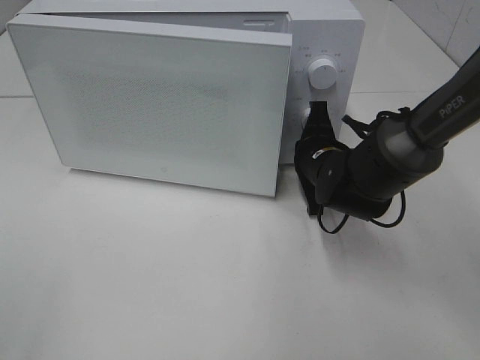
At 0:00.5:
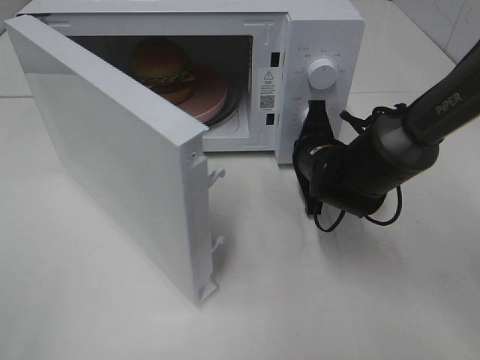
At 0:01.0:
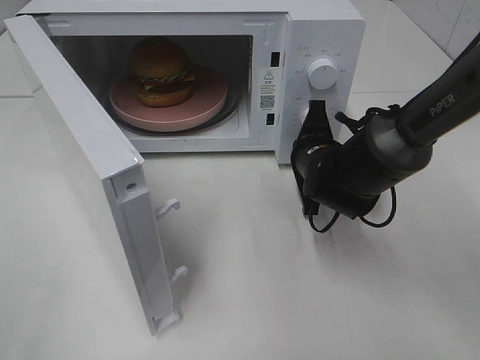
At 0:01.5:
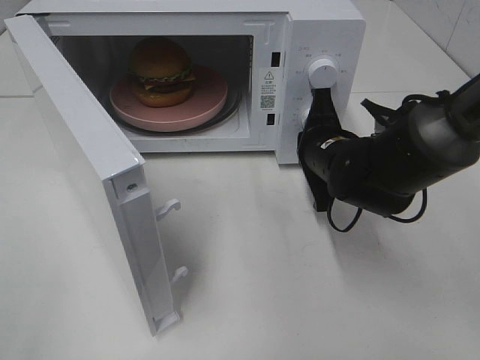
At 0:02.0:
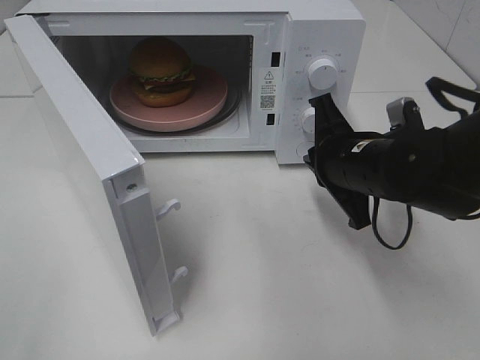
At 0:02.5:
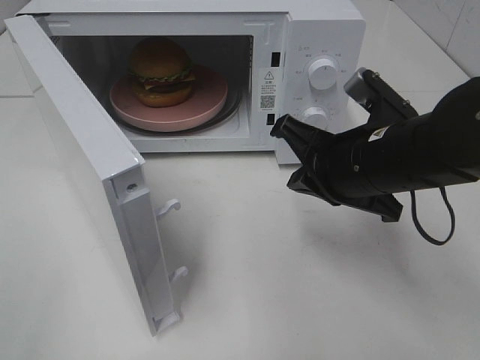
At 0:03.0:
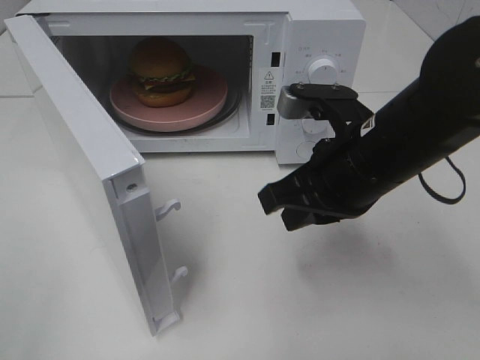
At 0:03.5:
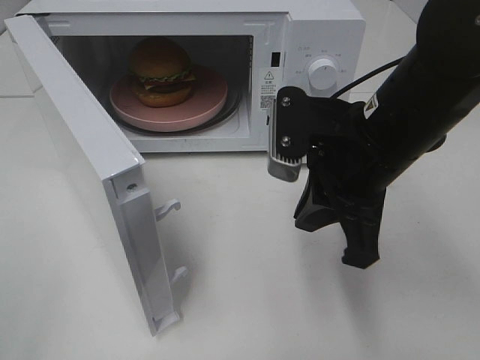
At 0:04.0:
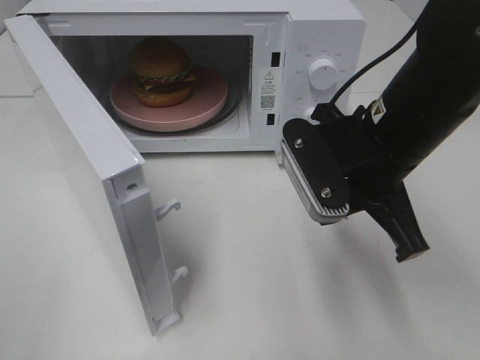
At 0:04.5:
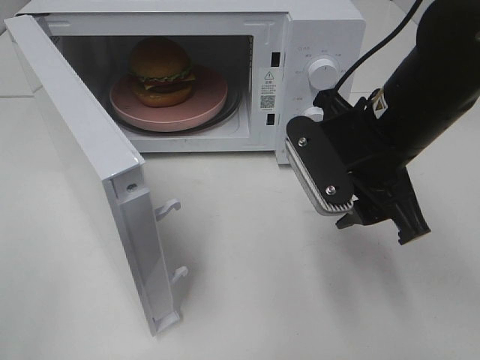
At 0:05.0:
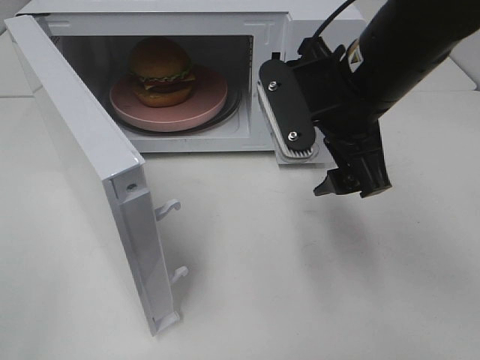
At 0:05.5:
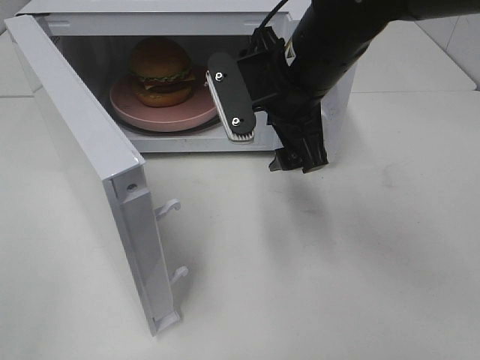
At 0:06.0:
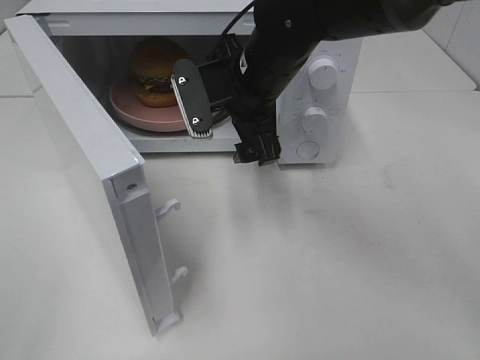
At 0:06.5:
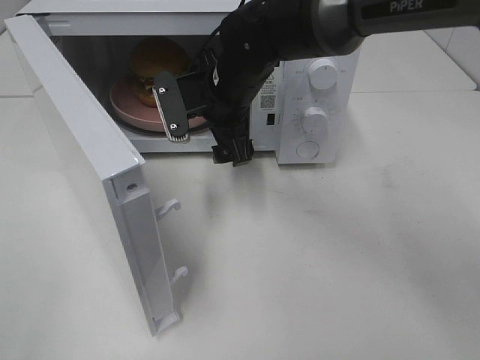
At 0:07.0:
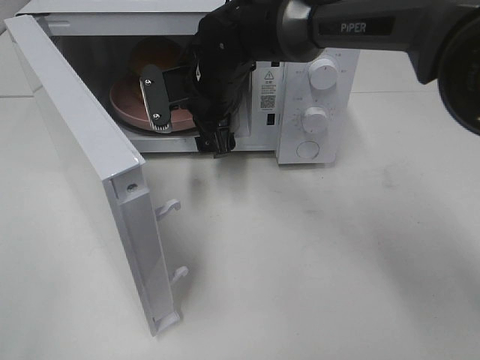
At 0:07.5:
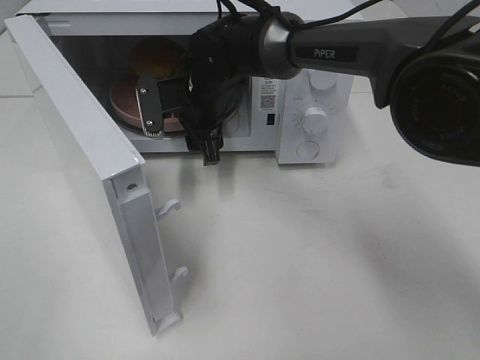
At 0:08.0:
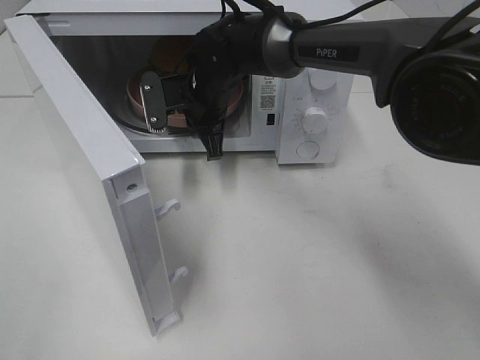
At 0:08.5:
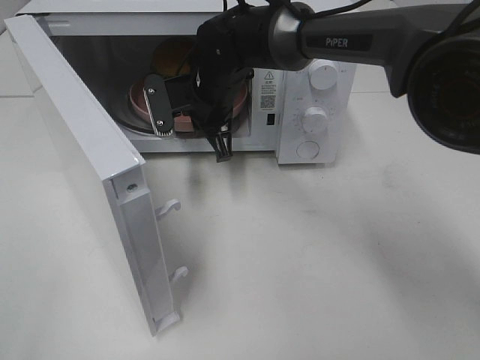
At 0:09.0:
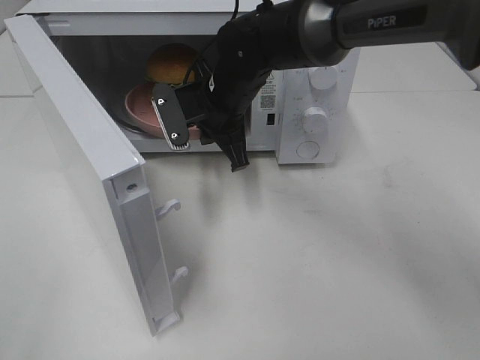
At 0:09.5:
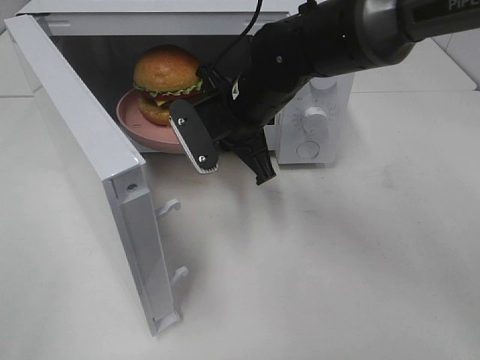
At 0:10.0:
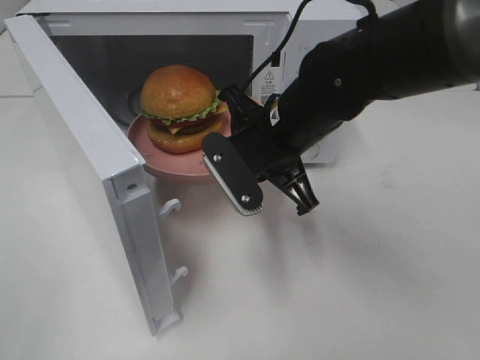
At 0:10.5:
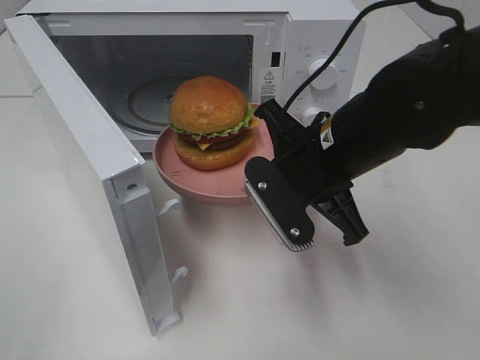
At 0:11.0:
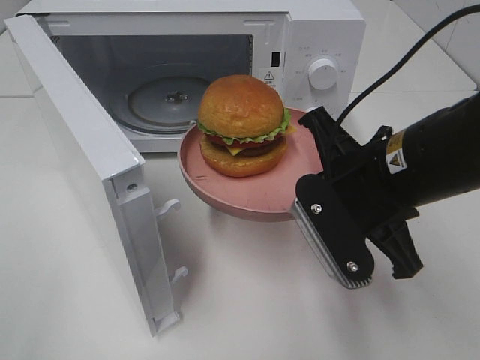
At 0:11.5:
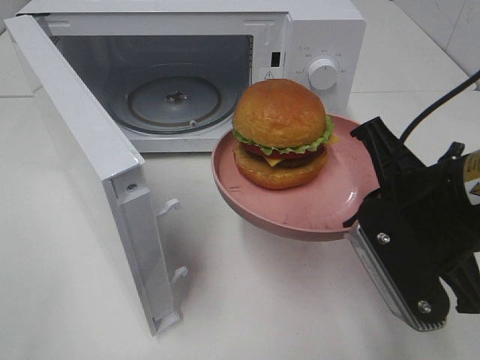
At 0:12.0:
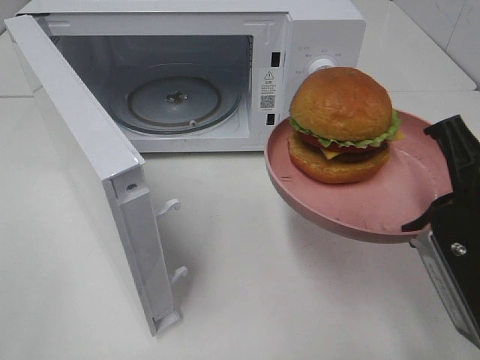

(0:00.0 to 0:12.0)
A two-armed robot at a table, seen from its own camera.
Task of the whole recording: Heat the burger.
Step, 0:02.0 - 0:07.5: Right hand: grab the plate with the hamburger.
0:00.0 - 0:02.0: The right gripper shifts some 10 cm backward and upward.
0:02.0 - 0:04.0: The right gripper is displaced upward by about 5 cm.
0:04.0 - 0:06.0: The right gripper heads forward and to the left, covering about 15 cm, and opens up.
0:06.0 - 0:08.0: The right gripper shifts about 10 cm forward, downward and to the left, and closes up.
0:08.0 - 0:10.0: The right gripper moves backward and to the right, some 15 cm.
0:10.0 - 0:12.0: The right gripper heads backward and to the right, covering about 20 cm.

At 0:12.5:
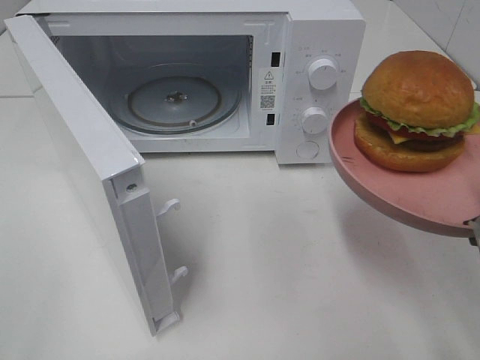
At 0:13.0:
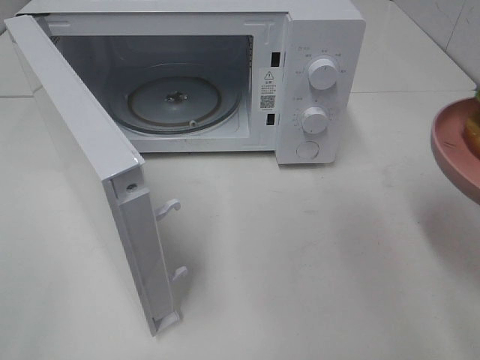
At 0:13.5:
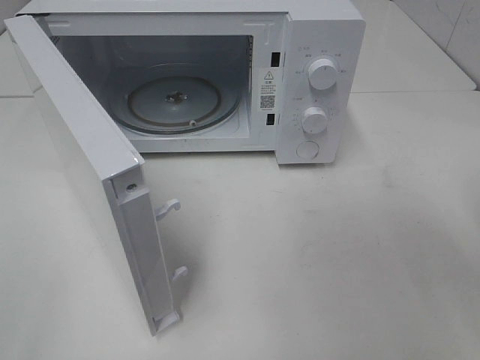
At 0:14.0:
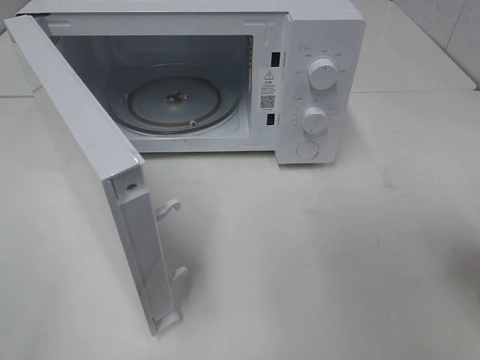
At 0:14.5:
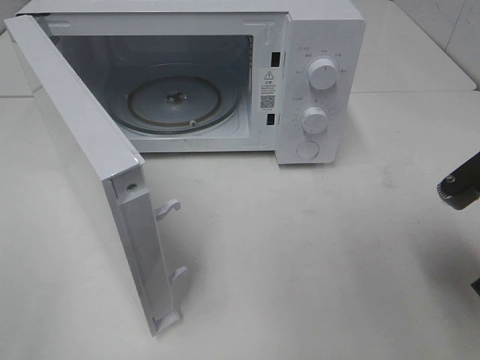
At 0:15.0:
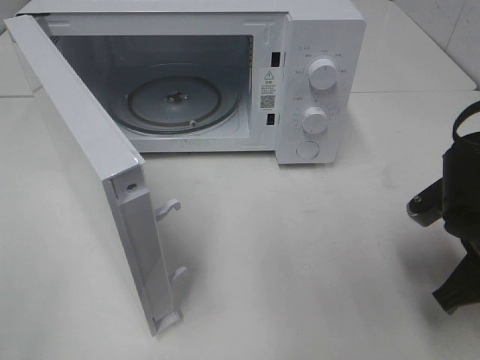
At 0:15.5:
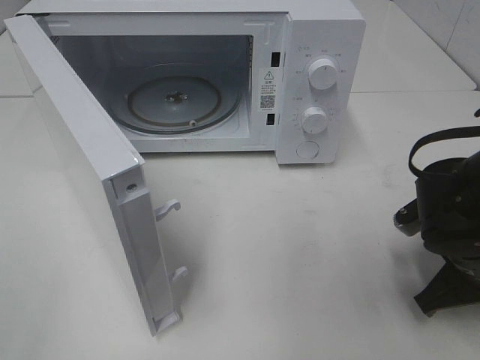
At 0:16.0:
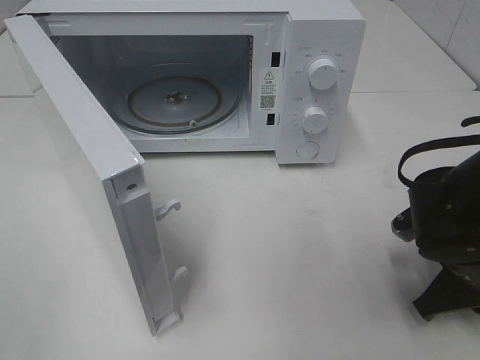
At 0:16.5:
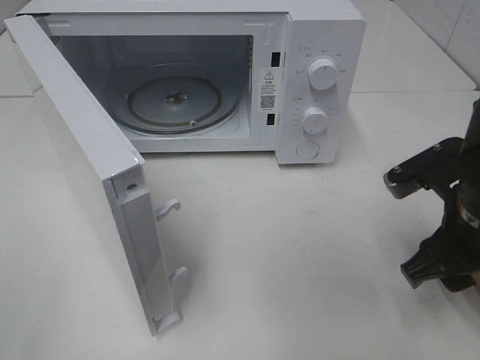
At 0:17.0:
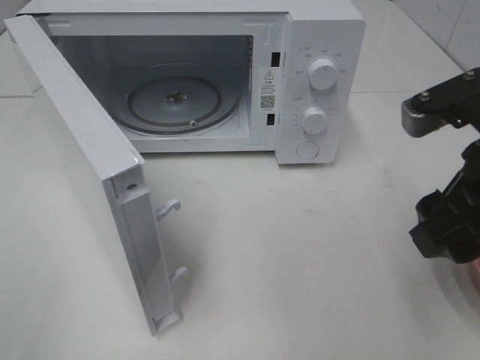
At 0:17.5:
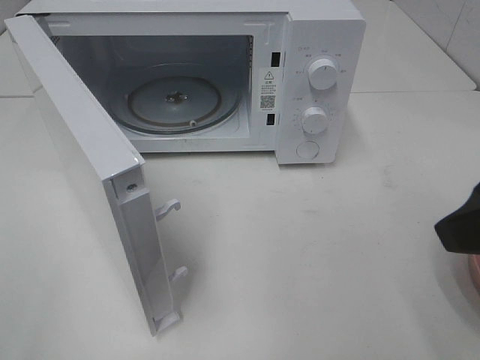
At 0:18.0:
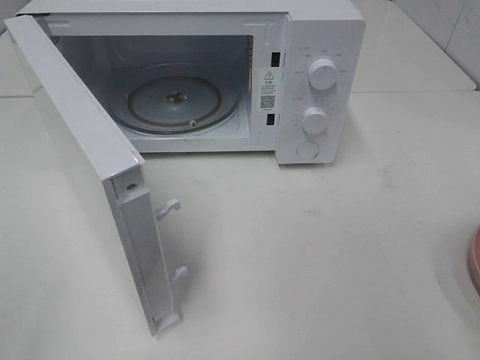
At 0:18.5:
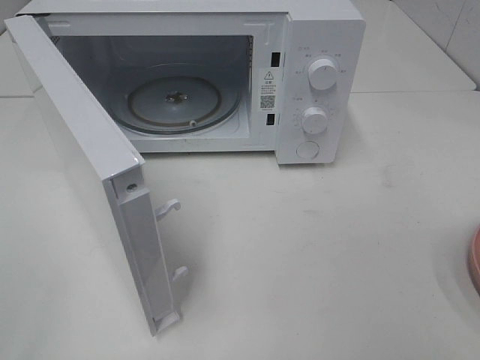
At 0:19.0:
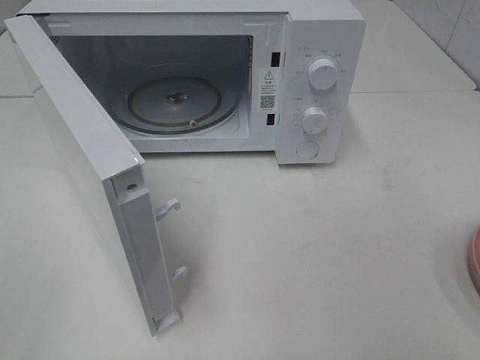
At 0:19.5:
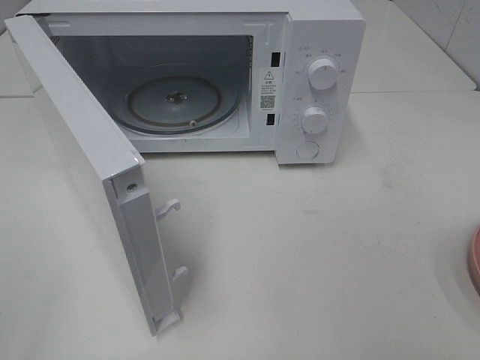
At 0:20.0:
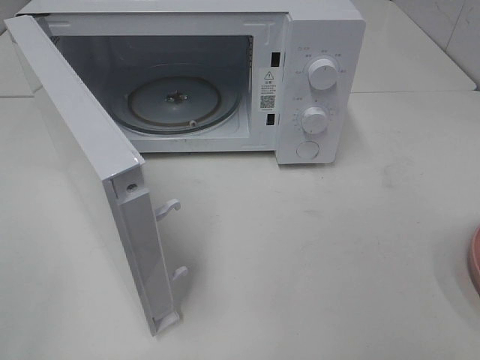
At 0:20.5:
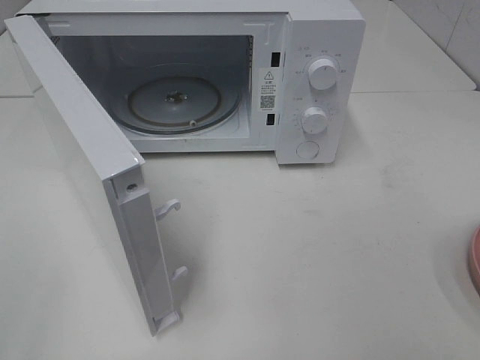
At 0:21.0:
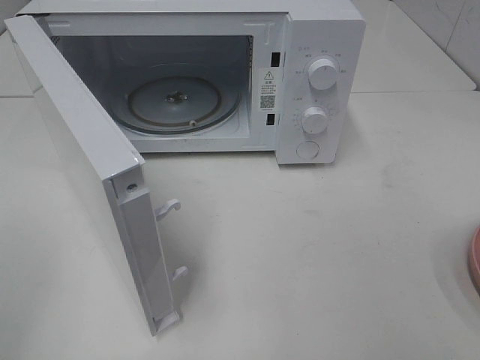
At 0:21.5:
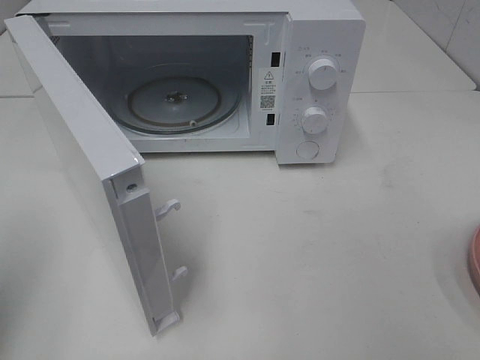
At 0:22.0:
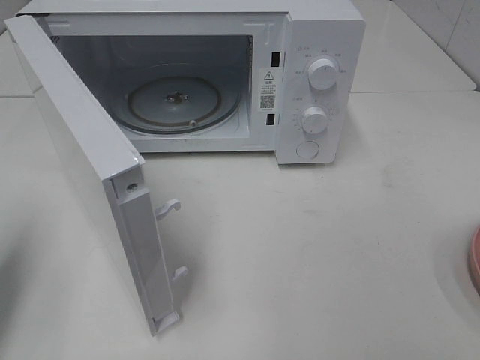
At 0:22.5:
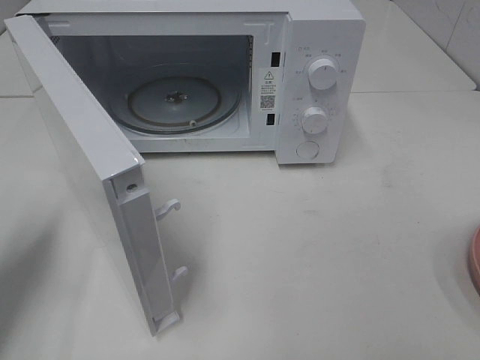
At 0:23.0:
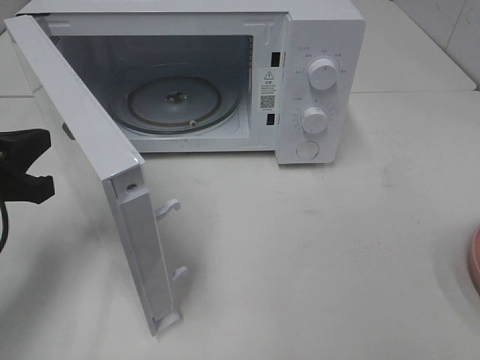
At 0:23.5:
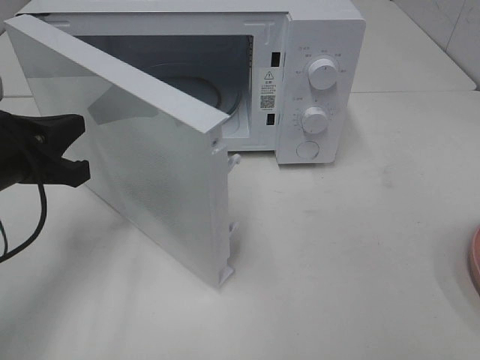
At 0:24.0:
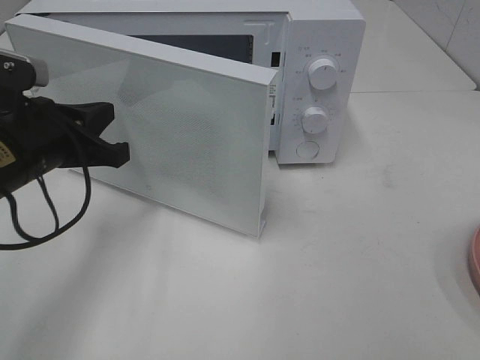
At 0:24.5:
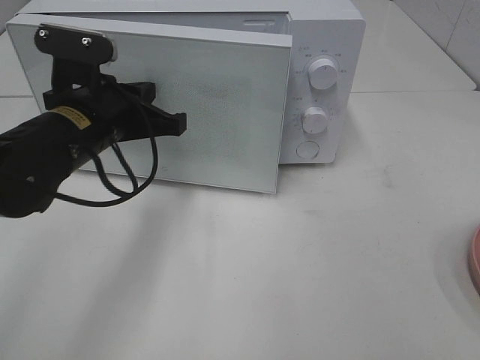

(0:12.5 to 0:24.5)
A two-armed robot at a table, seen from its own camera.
Task of the whole recording: Heat the burger.
Step, 0:12.5 - 0:16.0: Right hand: place the plate on the table.
0:12.5 - 0:14.5: The right gripper heads downward, covering about 5 cm.
0:14.5 - 0:16.5: The right gripper travels downward and back again, roughly 10 cm each way, and opens.
0:16.5 - 0:18.5: The right gripper heads backward, upward and to the right, covering roughly 25 cm.
0:20.5 - 0:22.5: The left gripper heads forward and downward, covering approximately 20 cm, and closes up.
0:22.5 - 0:24.5: The left gripper goes roughly 20 cm to the right and forward.

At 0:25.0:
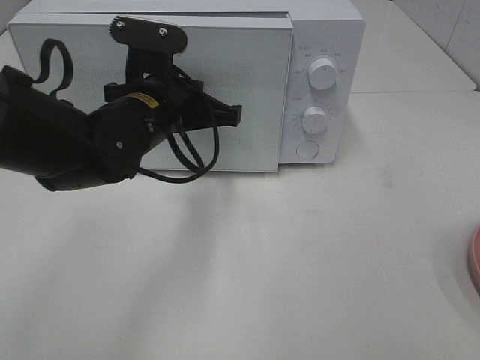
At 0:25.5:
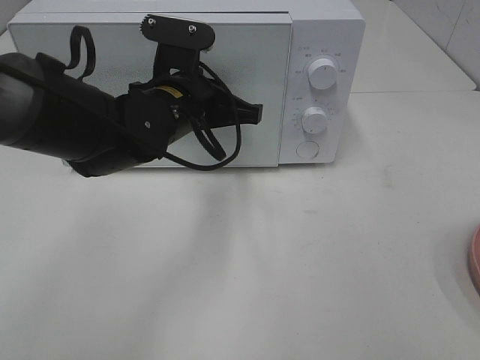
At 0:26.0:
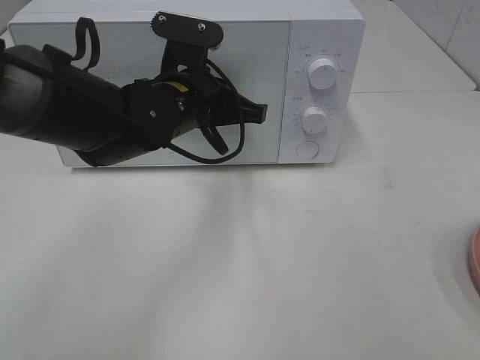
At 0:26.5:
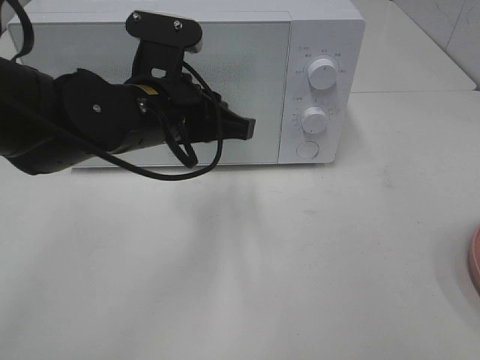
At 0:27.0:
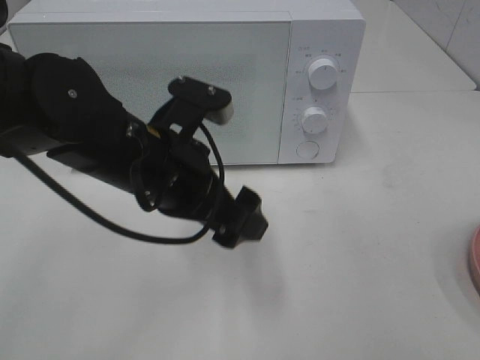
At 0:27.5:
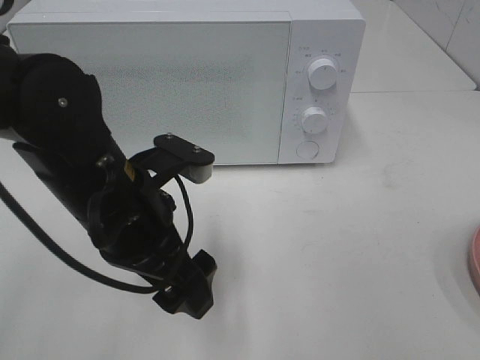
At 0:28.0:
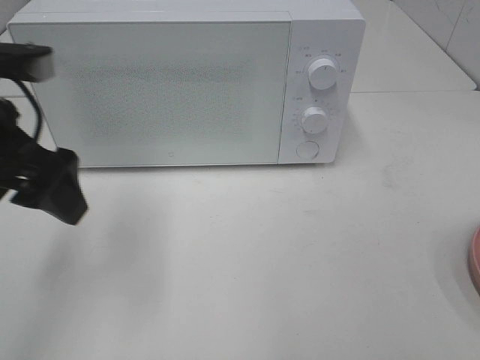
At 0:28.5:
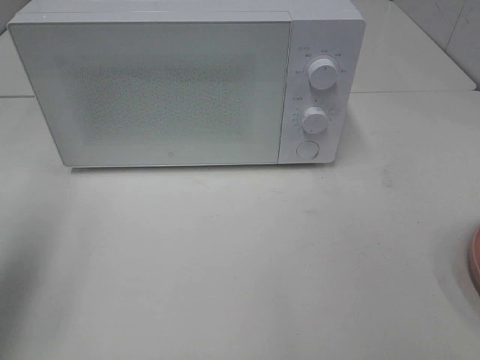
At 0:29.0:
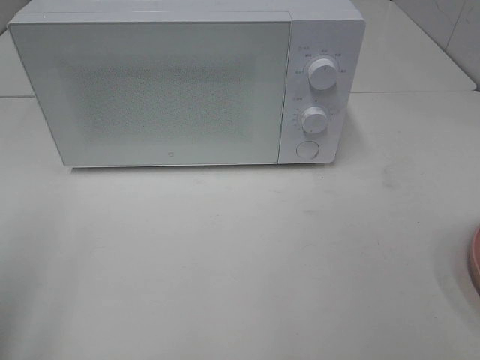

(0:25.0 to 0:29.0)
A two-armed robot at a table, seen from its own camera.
Task of the whole recording: Heat the burger.
0:25.0 - 0:27.0: The left gripper goes approximately 10 cm backward, and opens up.
0:27.0 - 0:29.0: The left gripper travels to the left and backward by about 30 cm.
